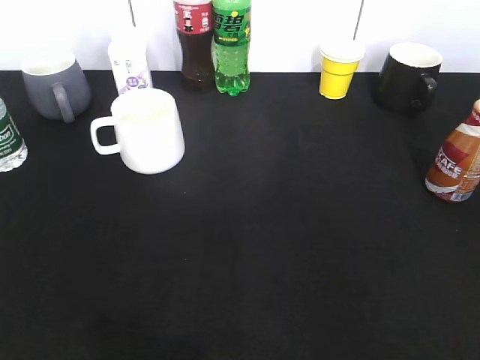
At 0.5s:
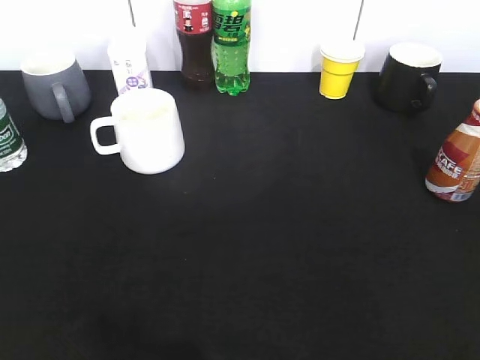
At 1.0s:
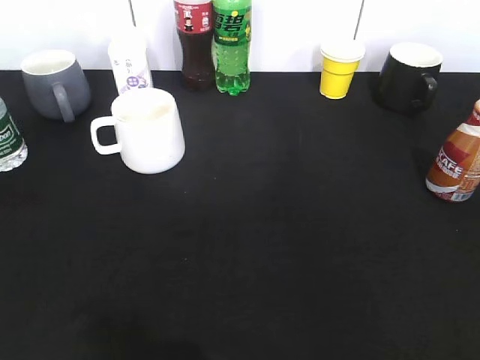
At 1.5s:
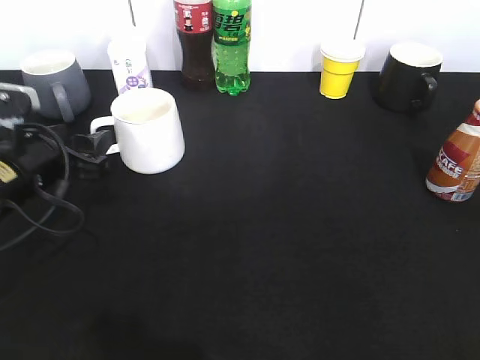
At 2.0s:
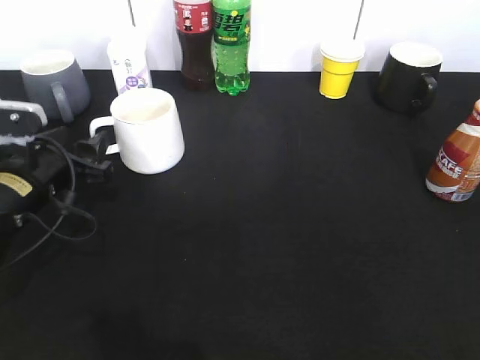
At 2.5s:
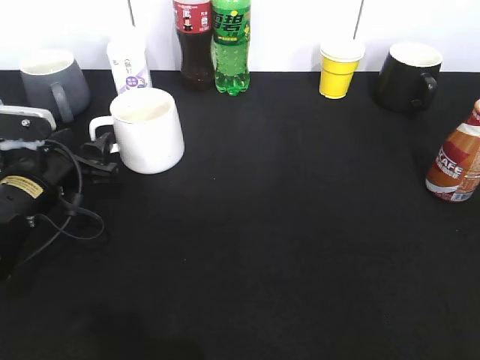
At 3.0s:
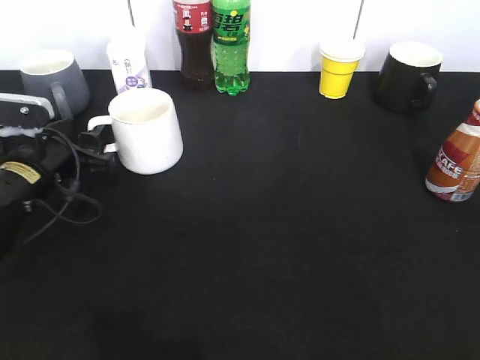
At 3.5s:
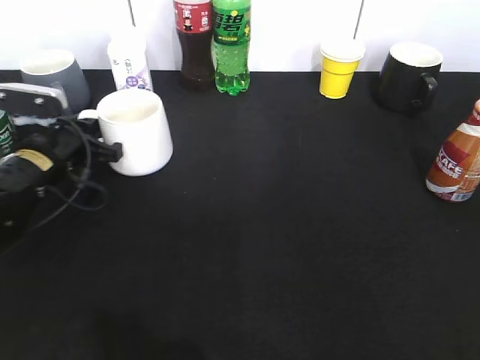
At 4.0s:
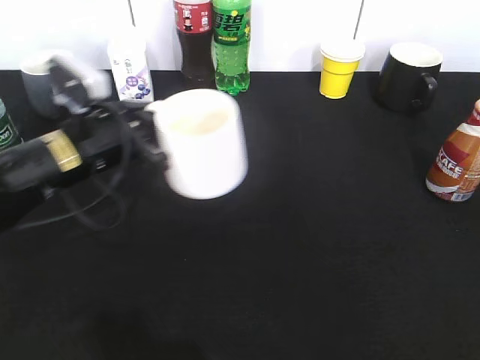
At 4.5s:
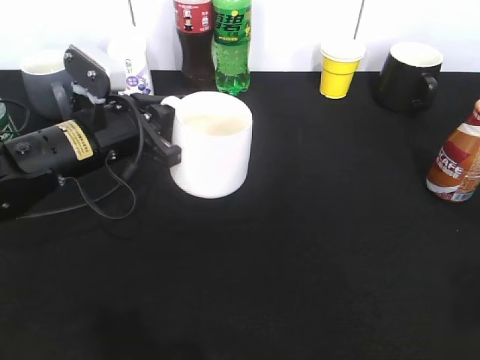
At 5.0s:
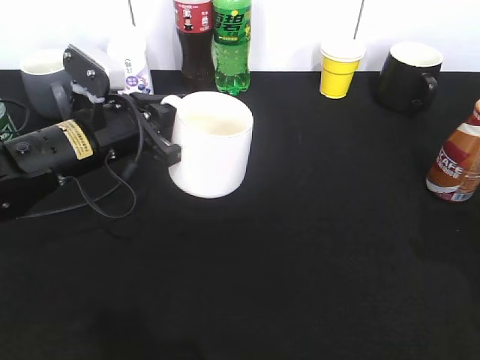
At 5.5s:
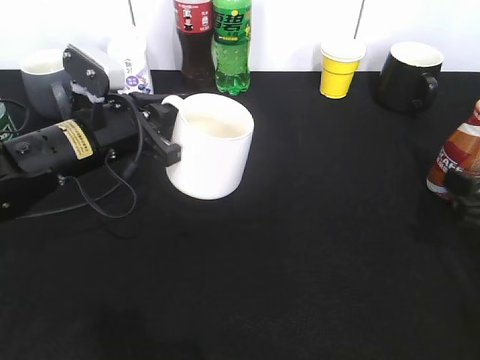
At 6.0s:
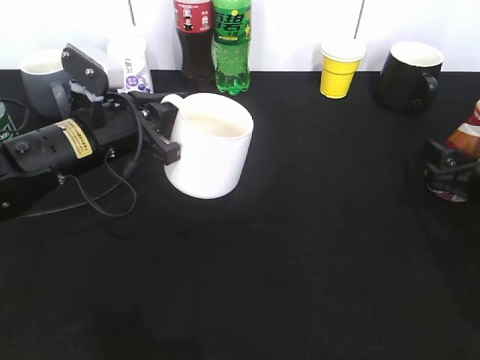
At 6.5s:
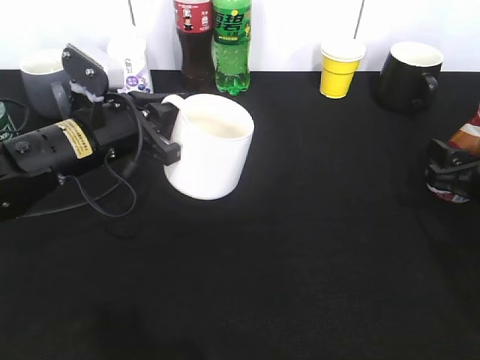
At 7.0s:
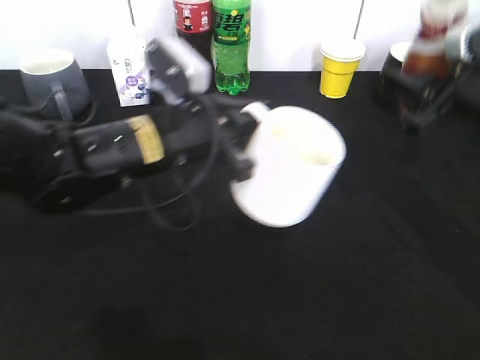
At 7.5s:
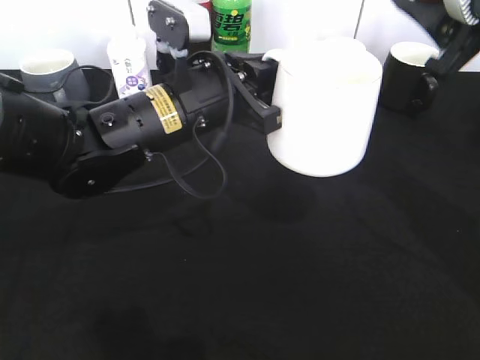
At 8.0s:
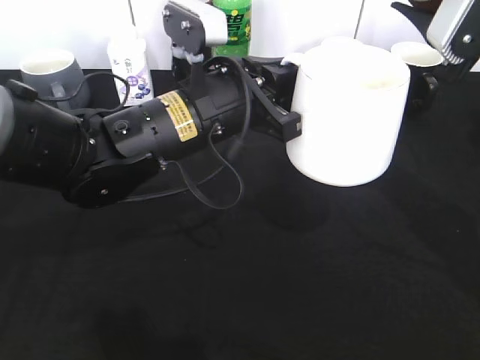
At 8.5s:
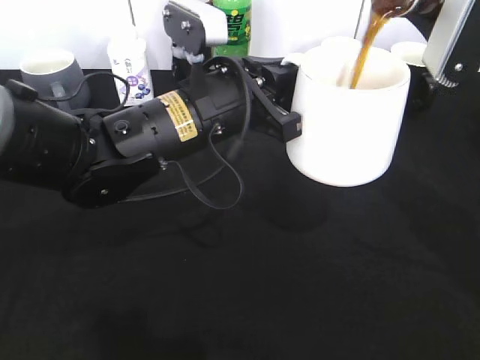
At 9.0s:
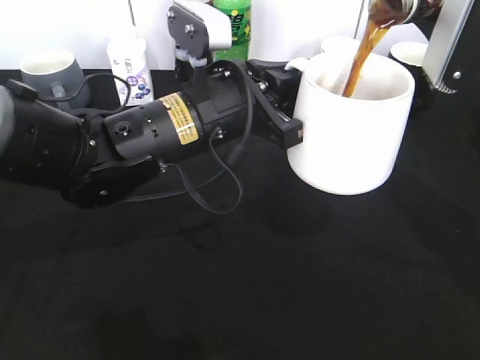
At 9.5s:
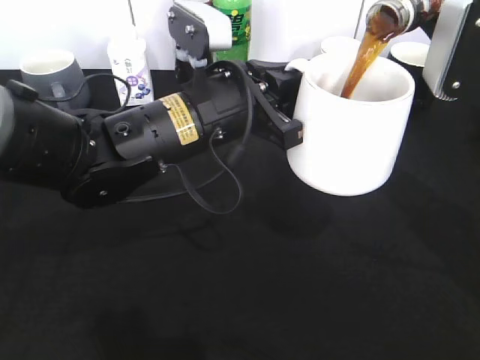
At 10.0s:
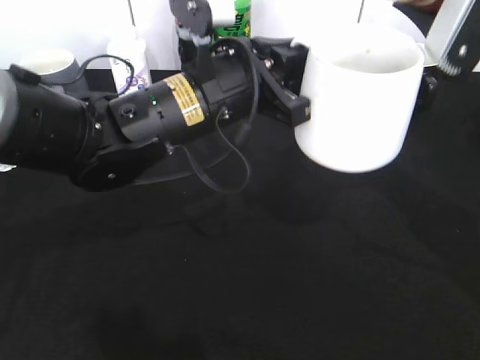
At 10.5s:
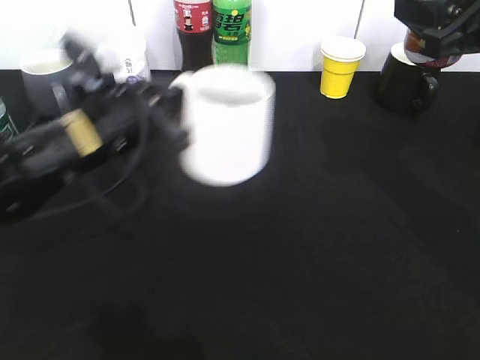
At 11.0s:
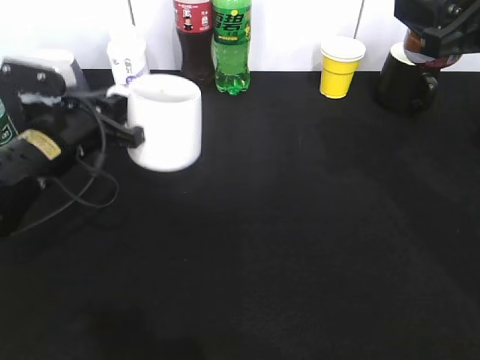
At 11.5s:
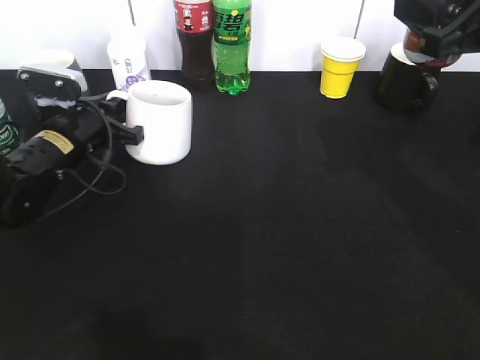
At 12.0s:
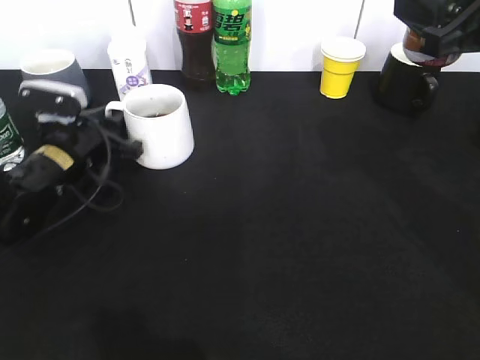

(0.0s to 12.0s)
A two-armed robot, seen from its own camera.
Step, 0.5s - 3.0s: Grasp the white cup with left gripper.
Step, 3.5s - 4.0s: Lift the white cup with left gripper.
Step, 4.5s - 6.0s: Grasp the bottle with coffee with right gripper.
Step, 6.5s - 10.0s: Pour the coffee from bottle to cup with right gripper.
0.0s - 2.0s: The left gripper moves forward and downward, roughly 30 cm, and opens its fingers.
2.0s - 4.0s: The left gripper is displaced to the right by roughly 5 cm, and closes up.
4.0s - 6.0s: The right gripper moves forward and downward, some 30 cm.
6.0s - 8.0s: The left gripper moves to the right and upward, roughly 15 cm. The right gripper goes approximately 20 cm upward, and closes.
10.0s - 12.0s: The left gripper moves to the left and downward, some 20 cm, and opens its fingers.

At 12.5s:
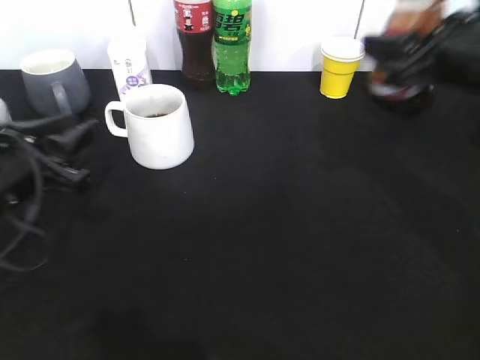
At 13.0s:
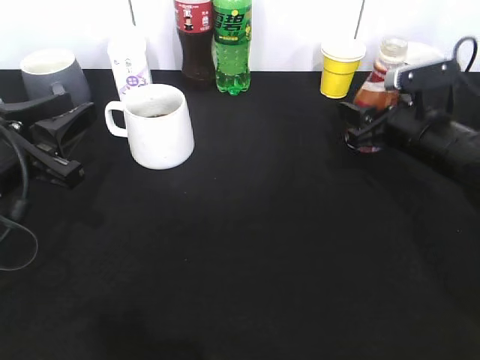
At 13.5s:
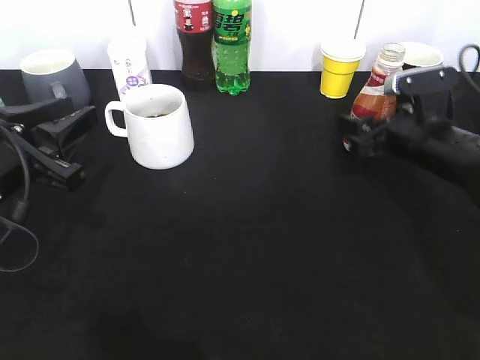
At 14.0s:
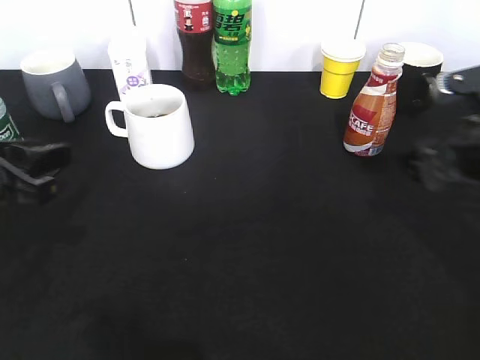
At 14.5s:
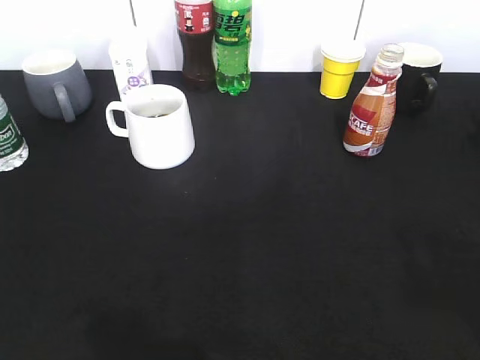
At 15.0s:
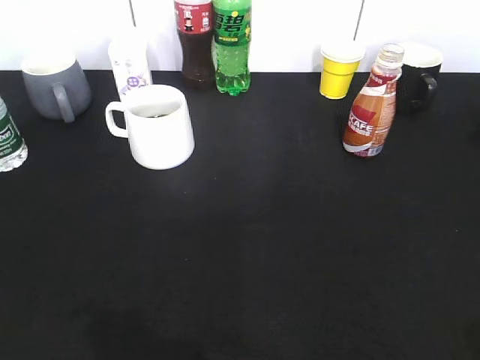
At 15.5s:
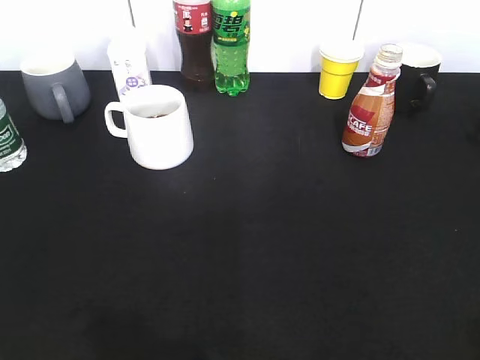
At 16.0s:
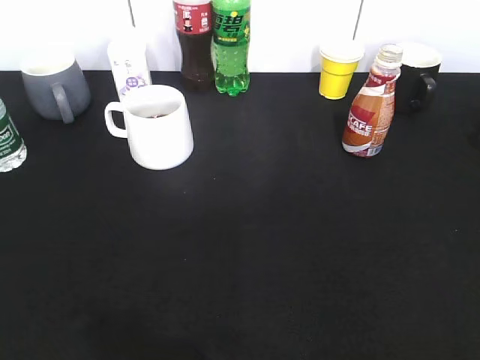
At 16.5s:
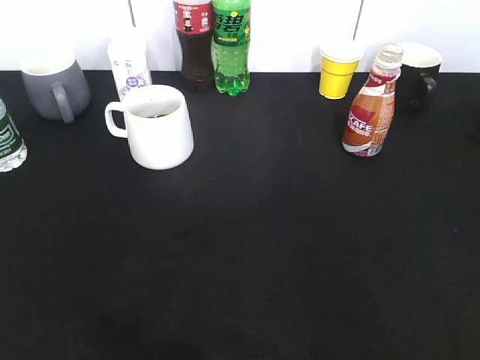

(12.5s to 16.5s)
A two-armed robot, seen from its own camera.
Step, 12.5s - 13.5s: Place the coffee bottle on the table with right gripper.
12.5s - 14.5s: The right gripper travels backward by some 20 cm, and opens up. The left gripper moves backward and upward, some 25 cm.
14.5s - 16.5s: The left gripper moves backward, approximately 5 cm; the right gripper moves backward, approximately 10 cm.

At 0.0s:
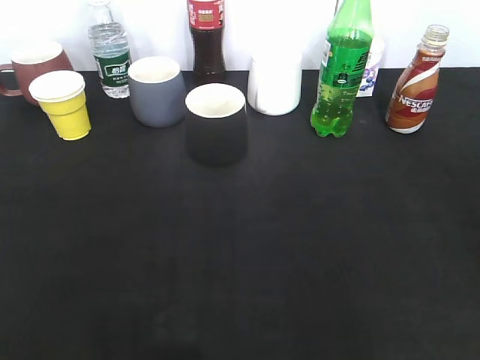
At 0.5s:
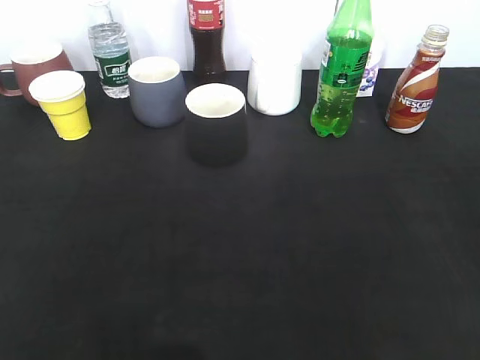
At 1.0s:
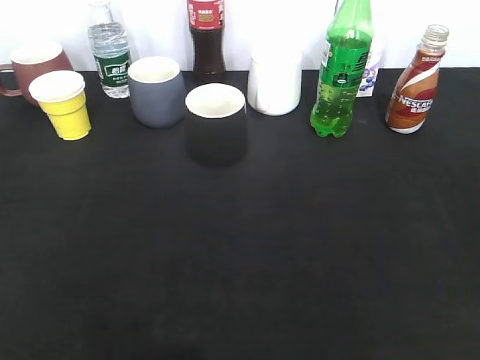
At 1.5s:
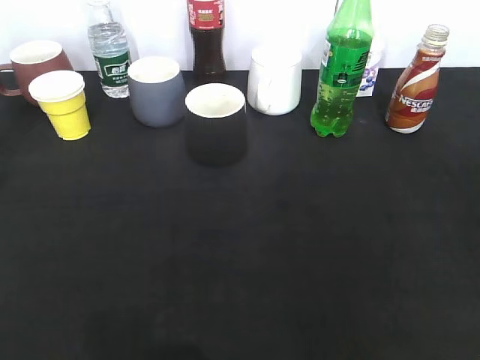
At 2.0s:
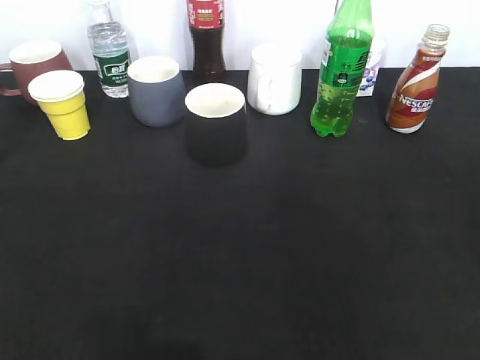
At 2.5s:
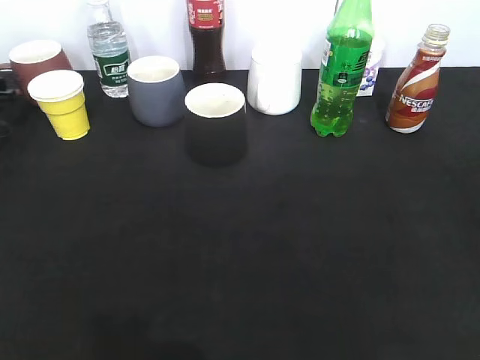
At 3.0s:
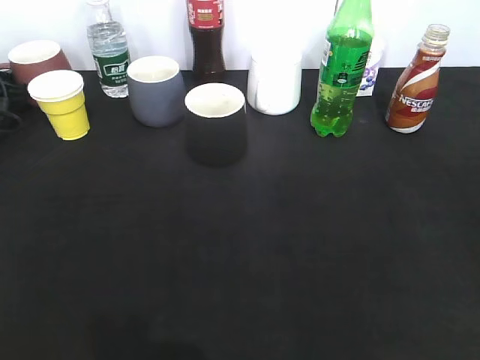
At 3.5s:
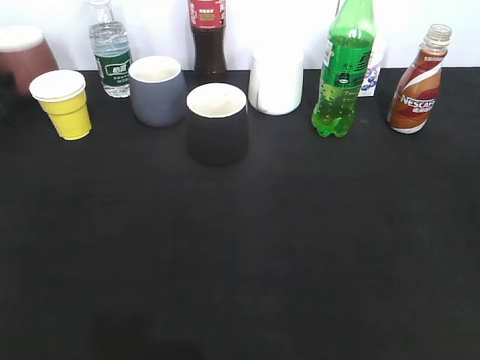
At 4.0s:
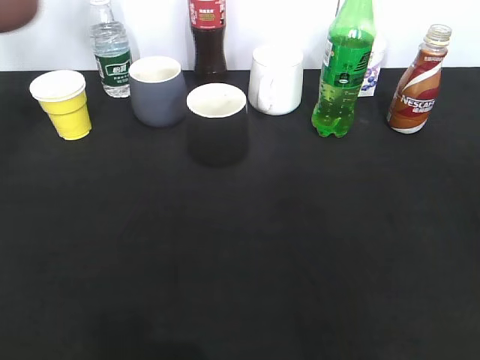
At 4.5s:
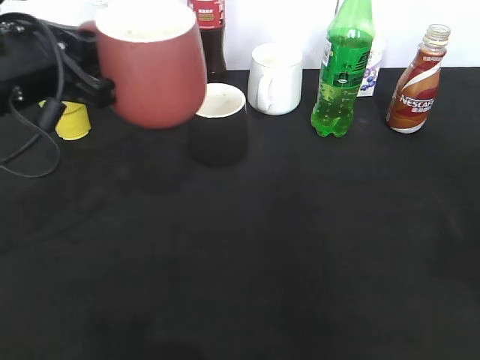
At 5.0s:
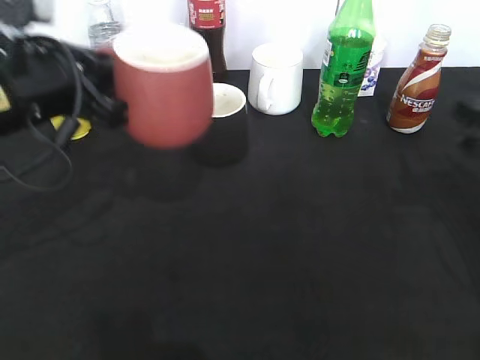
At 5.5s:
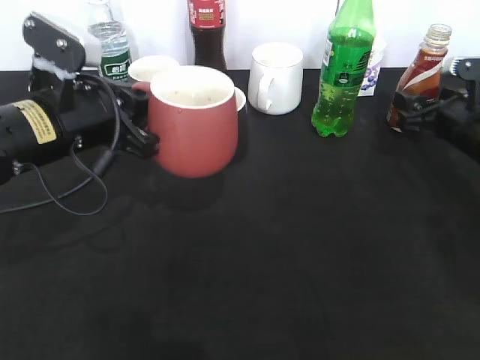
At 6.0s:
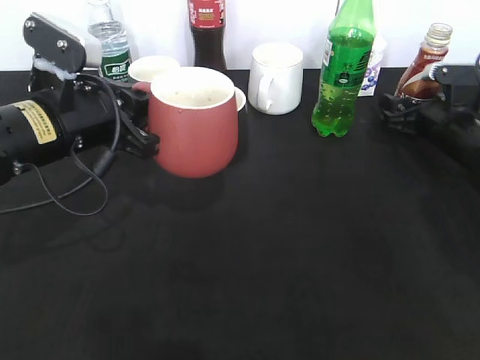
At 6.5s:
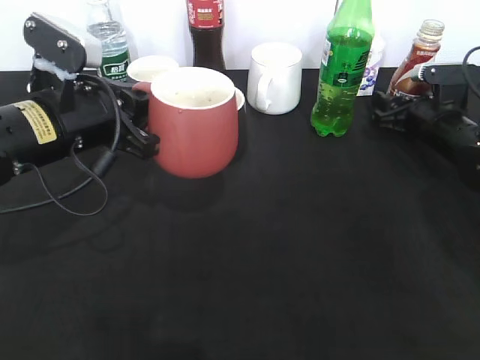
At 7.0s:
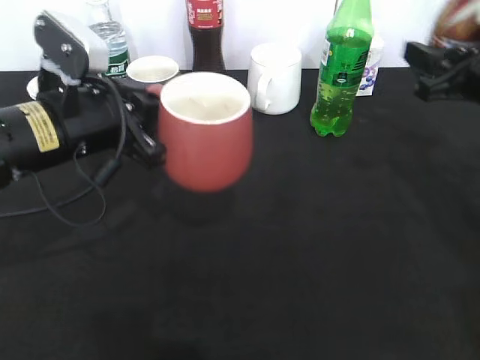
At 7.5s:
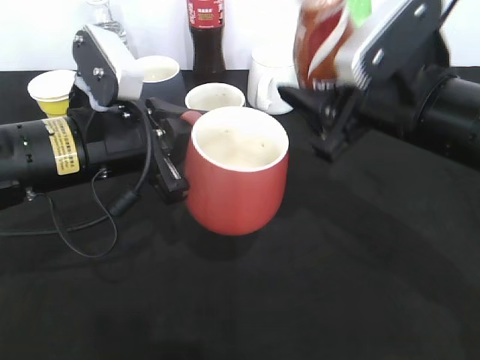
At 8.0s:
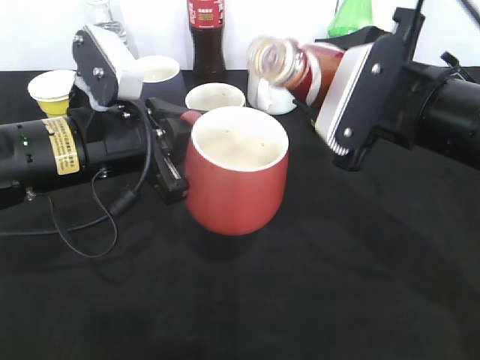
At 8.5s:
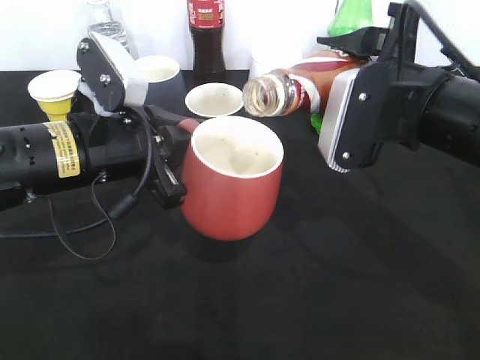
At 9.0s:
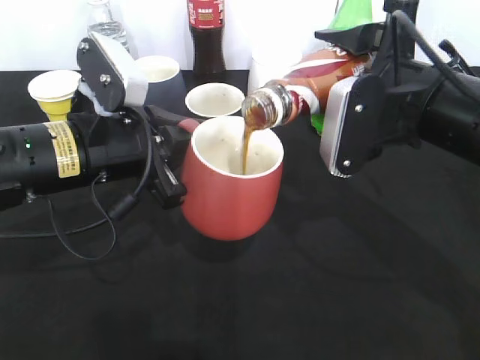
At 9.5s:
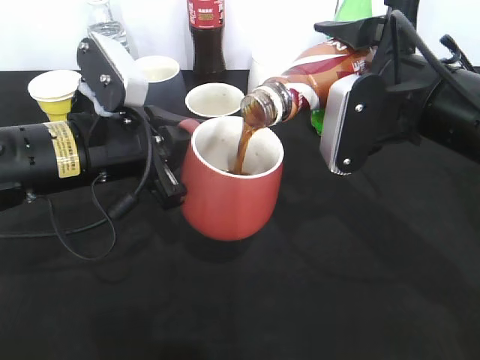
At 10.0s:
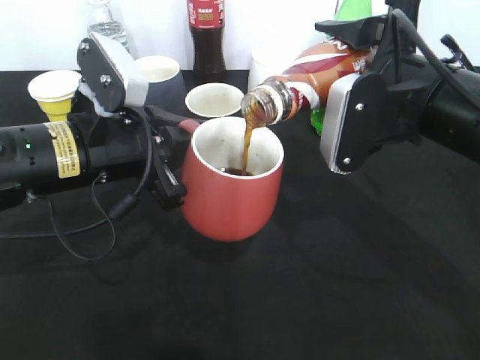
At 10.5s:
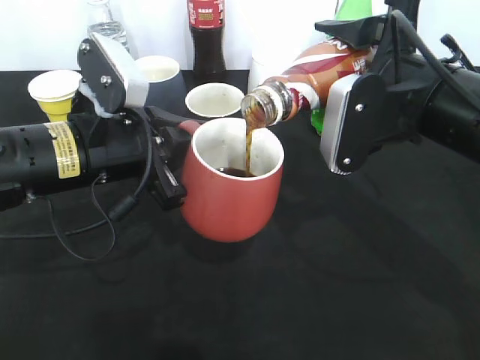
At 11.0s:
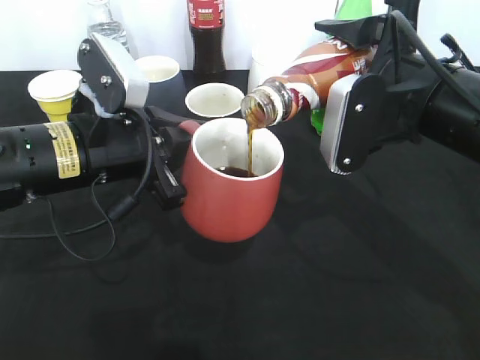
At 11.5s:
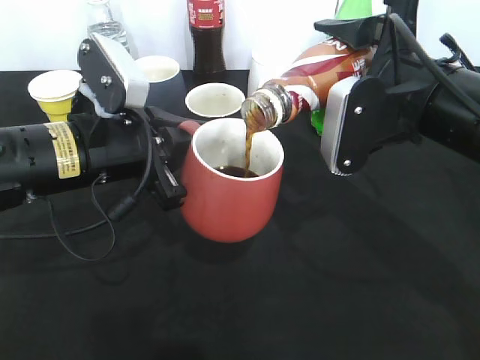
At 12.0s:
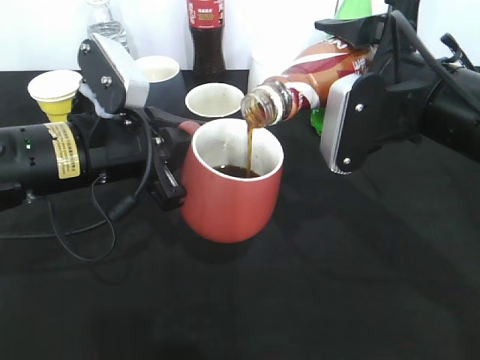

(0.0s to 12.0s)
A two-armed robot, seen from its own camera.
Step, 3.5s - 4.5s: Lift the red cup with left gripper.
Step, 5.0s - 6.0s: Grasp the bottle with coffee with right gripper.
0.0s - 2.0s: The left gripper heads forward, covering roughly 30 cm, and opens.
2.0s - 4.0s: The left gripper travels upward by about 10 cm, and closes up.
4.0s - 6.0s: The right gripper moves forward and downward, some 40 cm, and opens its fingers, while the left gripper moves to the right and downward, some 20 cm.
6.0s - 8.0s: The right gripper goes approximately 25 cm backward, upward and to the left, and closes its fingers.
10.0s - 12.0s: The two grippers keep their place.
